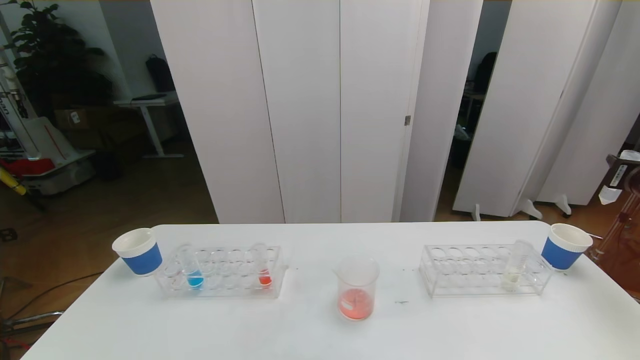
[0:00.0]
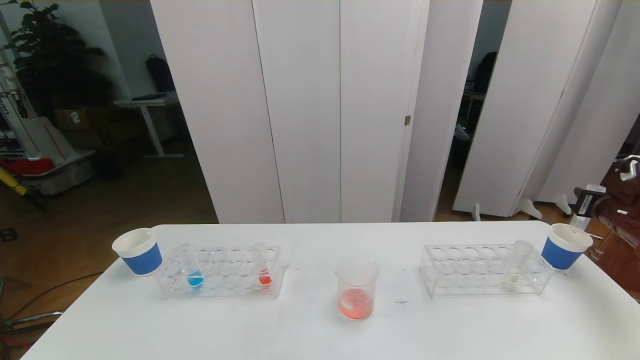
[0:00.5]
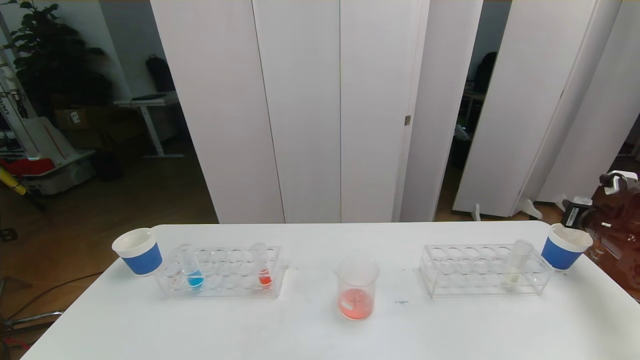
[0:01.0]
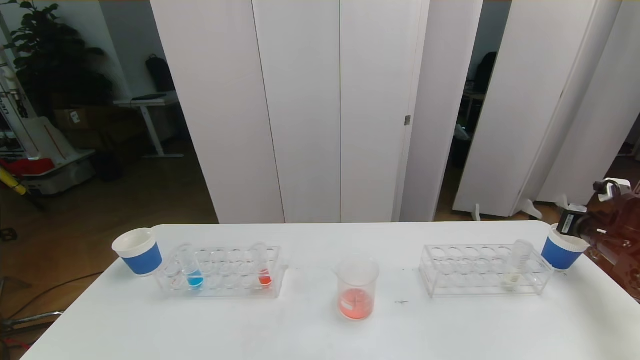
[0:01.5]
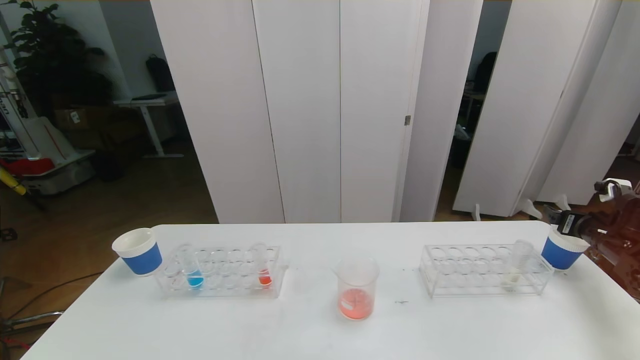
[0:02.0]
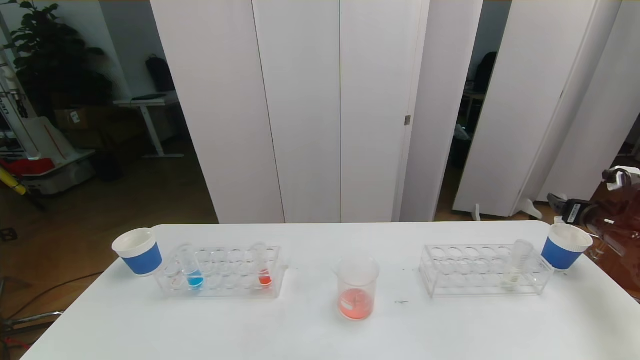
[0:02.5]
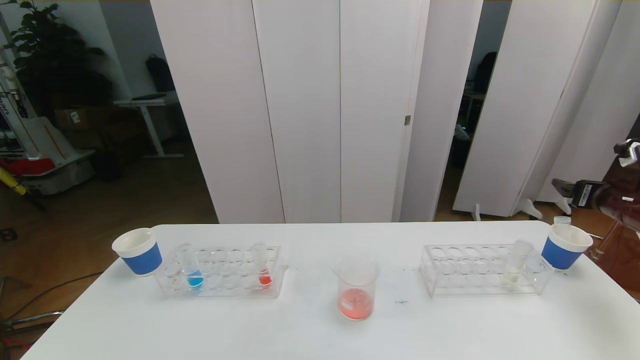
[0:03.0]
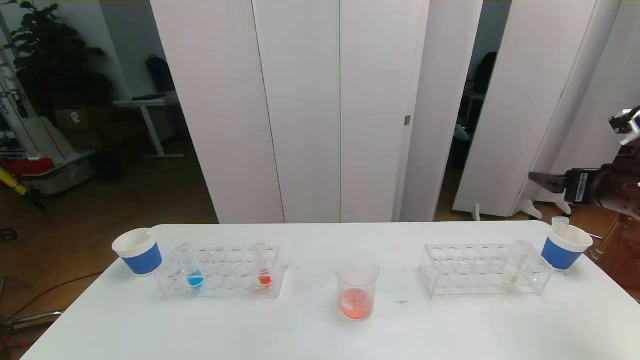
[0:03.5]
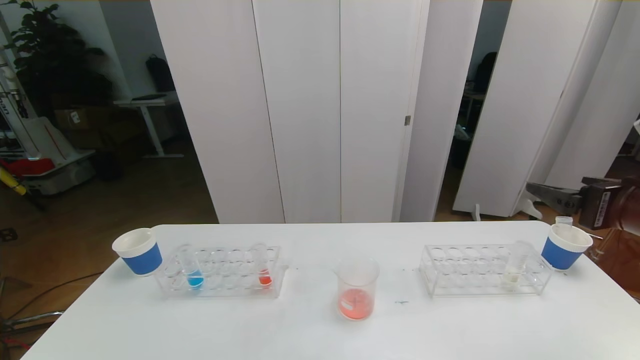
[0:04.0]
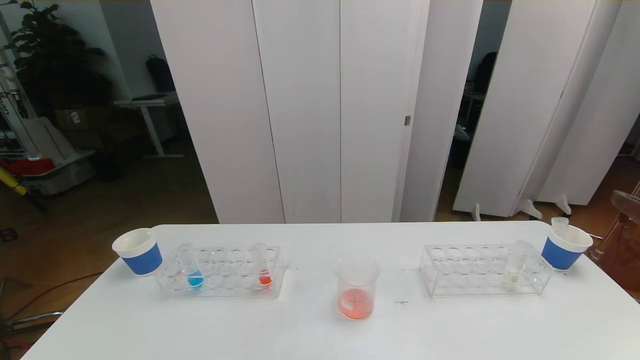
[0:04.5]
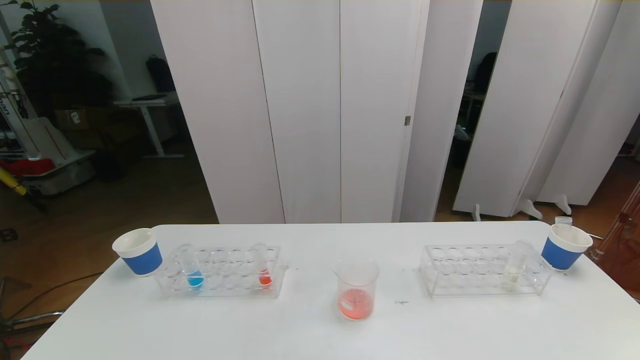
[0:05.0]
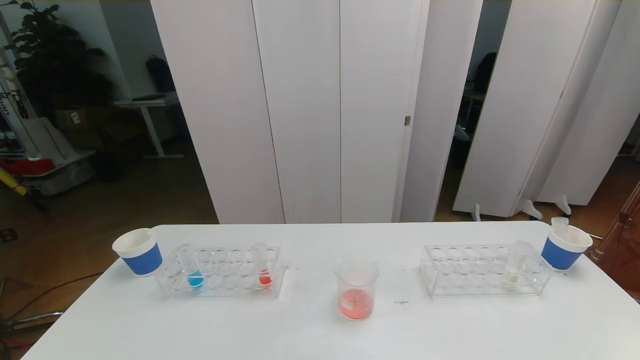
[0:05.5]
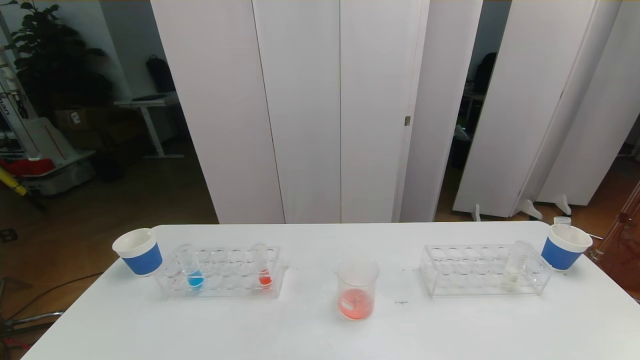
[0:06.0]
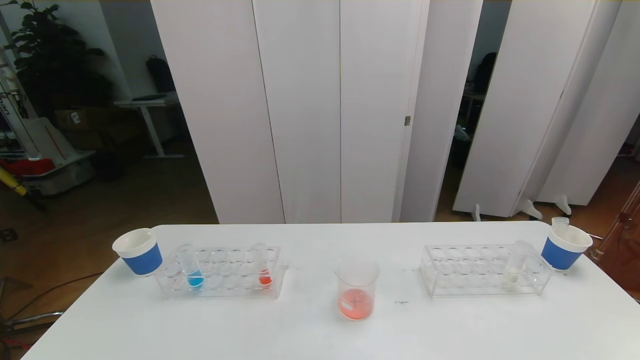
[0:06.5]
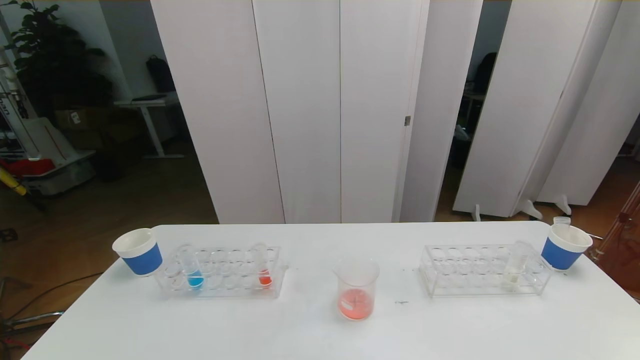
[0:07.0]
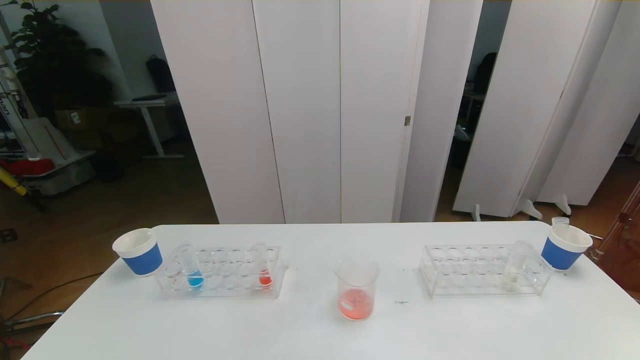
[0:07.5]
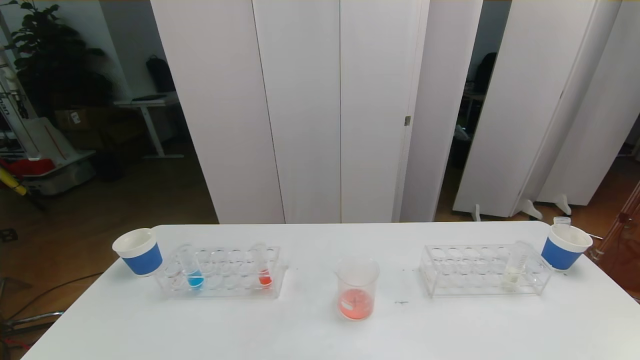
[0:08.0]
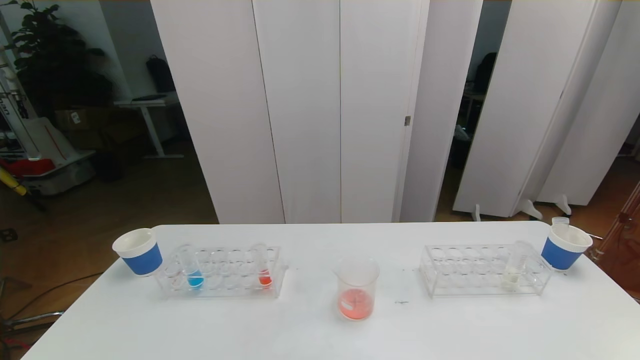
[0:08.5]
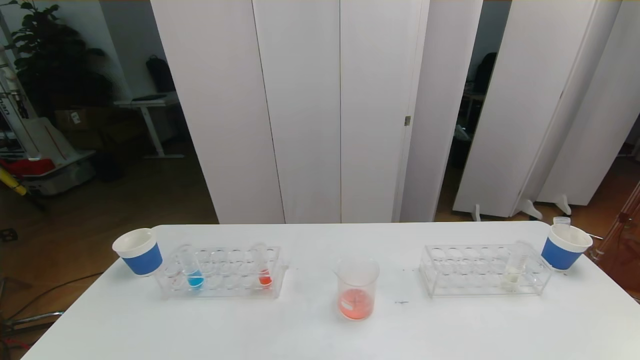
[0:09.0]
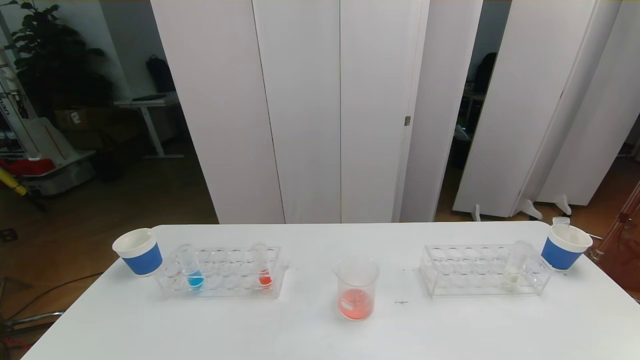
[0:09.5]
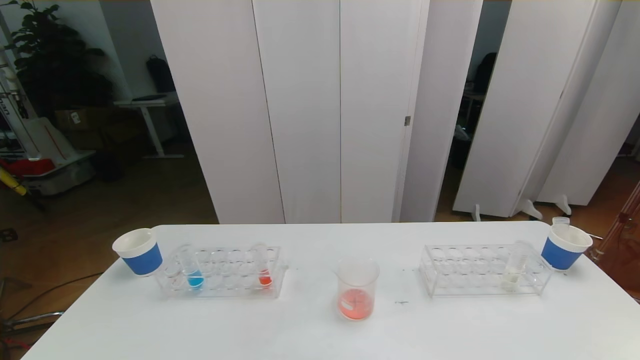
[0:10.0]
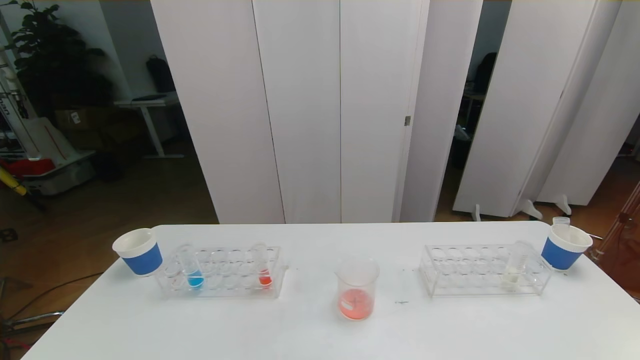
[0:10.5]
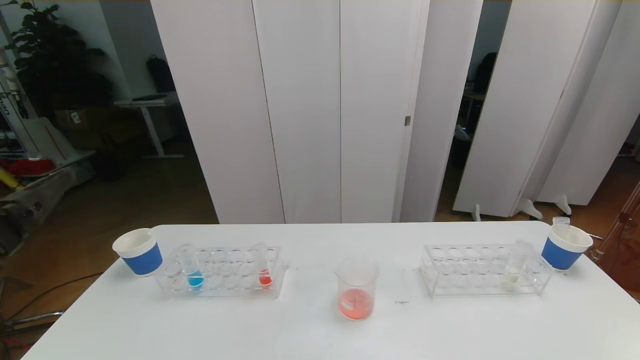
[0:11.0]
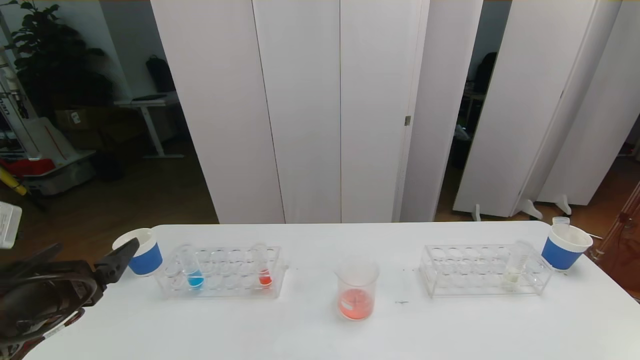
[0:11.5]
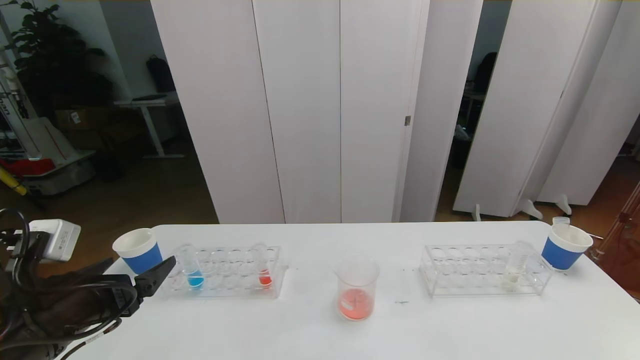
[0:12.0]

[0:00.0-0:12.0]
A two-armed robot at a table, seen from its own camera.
Task of the whole recording: pick up the test tube with red pigment the test tube with blue pigment and the test tube with white pigment by grippers and pour them into the beaker.
Step, 0:00.0 to 0:09.5: Pour the red reagent into the graduated cylinder and place the test tube into the paper cup.
0:00.0 to 0:02.0: The right gripper moves downward, roughly 10 cm, and opens its fingers.
0:02.0 to 0:04.0: The right gripper moves upward, to the left and backward, approximately 25 cm.
0:04.0 to 0:06.0: The right gripper shifts about 30 cm backward and downward.
0:10.0 to 0:12.0: The left gripper heads forward and downward, covering roughly 25 cm.

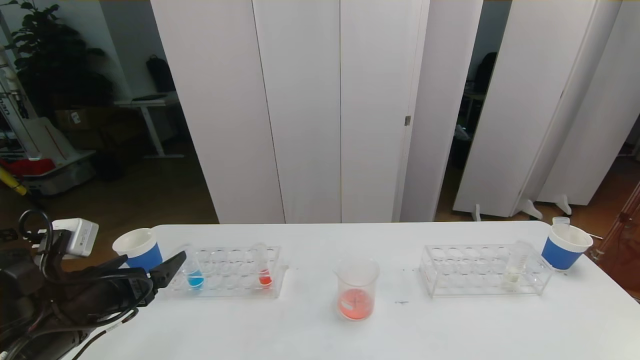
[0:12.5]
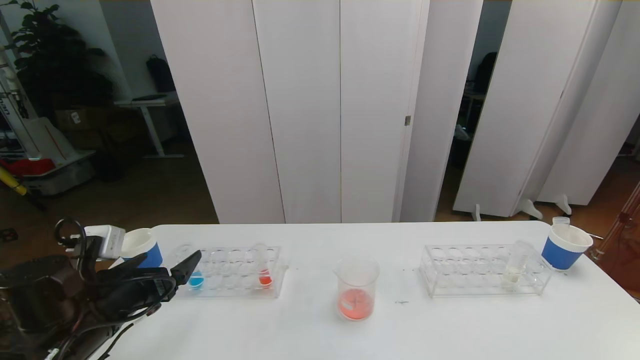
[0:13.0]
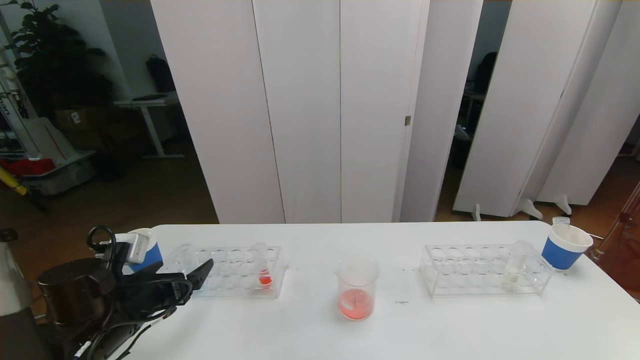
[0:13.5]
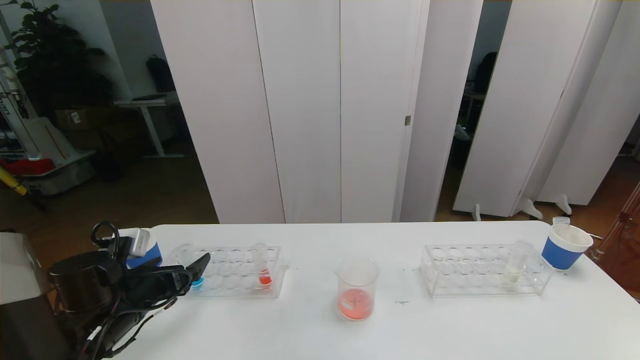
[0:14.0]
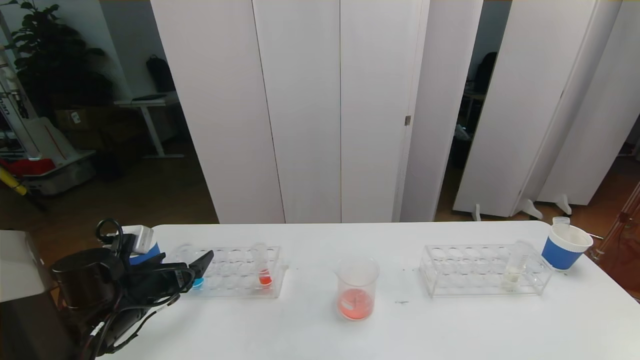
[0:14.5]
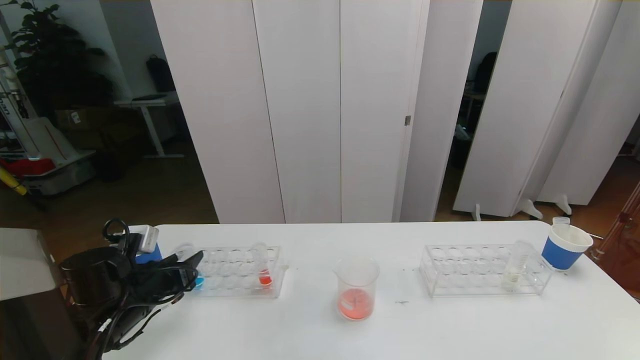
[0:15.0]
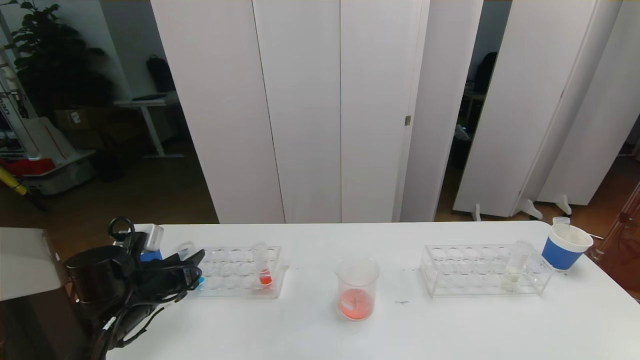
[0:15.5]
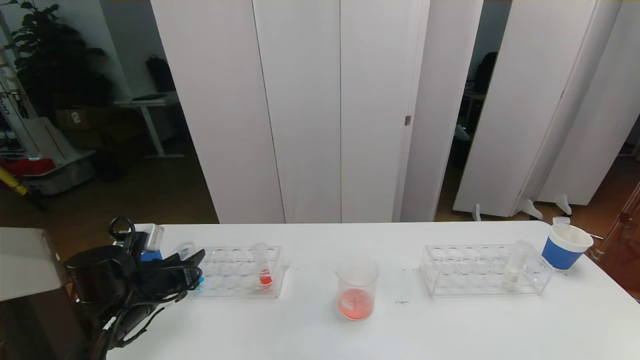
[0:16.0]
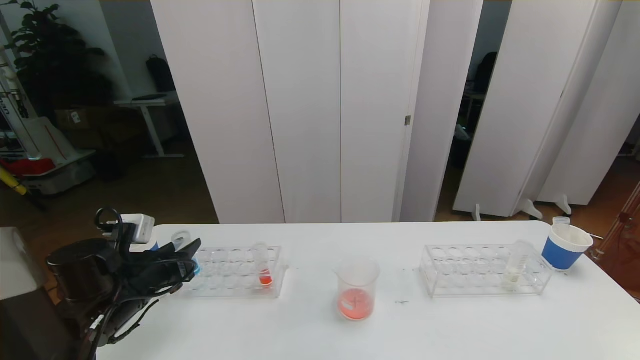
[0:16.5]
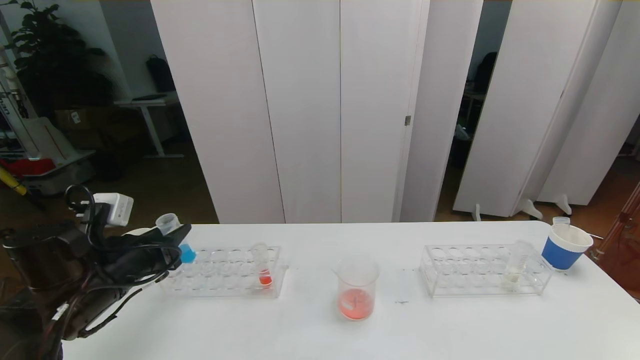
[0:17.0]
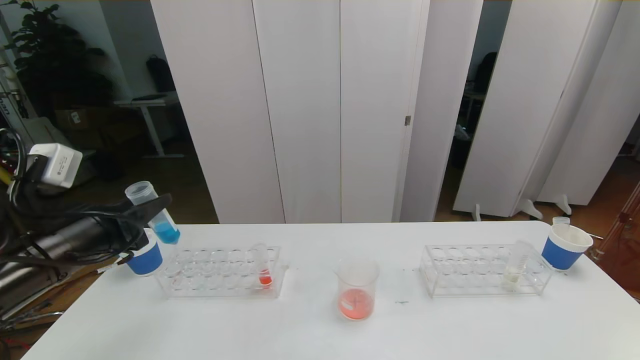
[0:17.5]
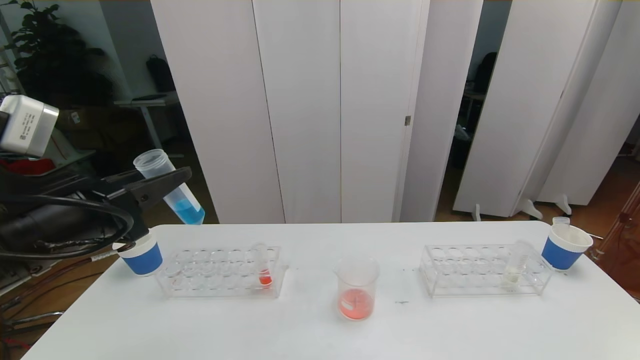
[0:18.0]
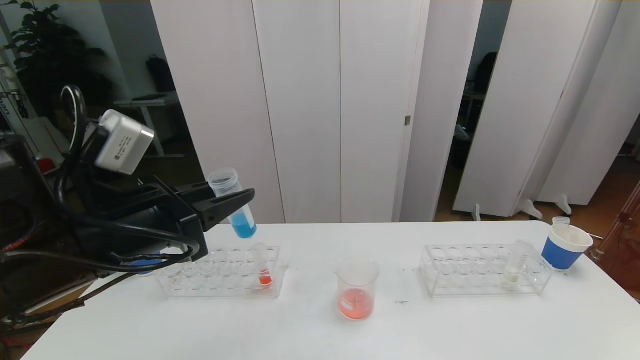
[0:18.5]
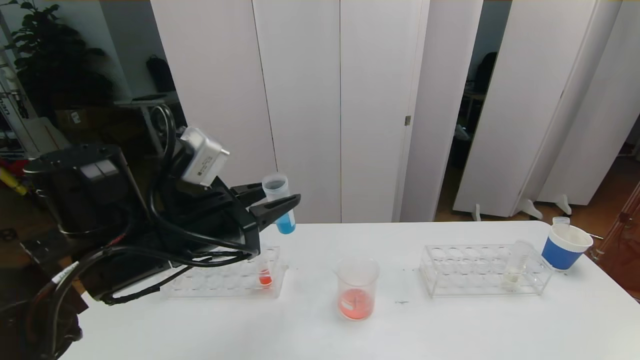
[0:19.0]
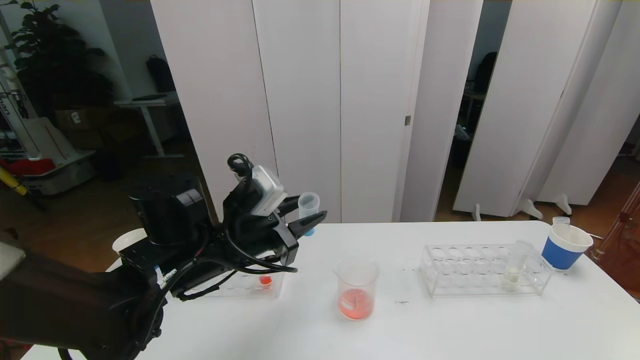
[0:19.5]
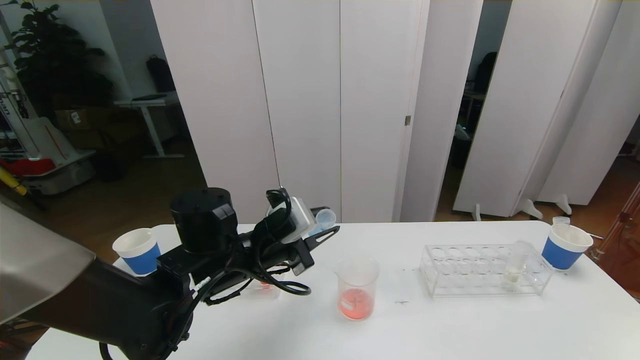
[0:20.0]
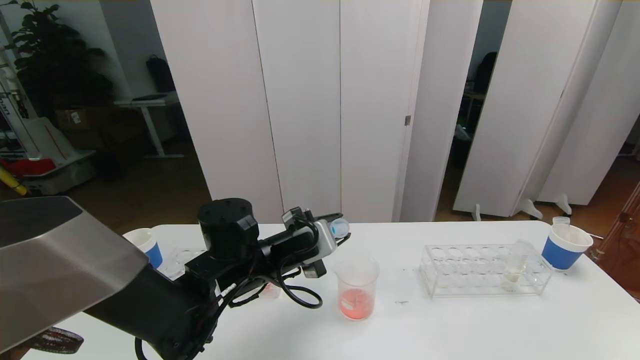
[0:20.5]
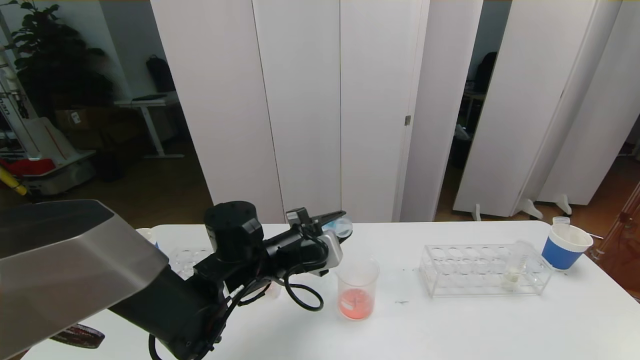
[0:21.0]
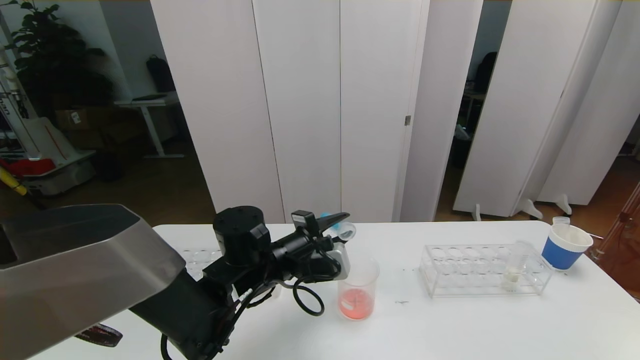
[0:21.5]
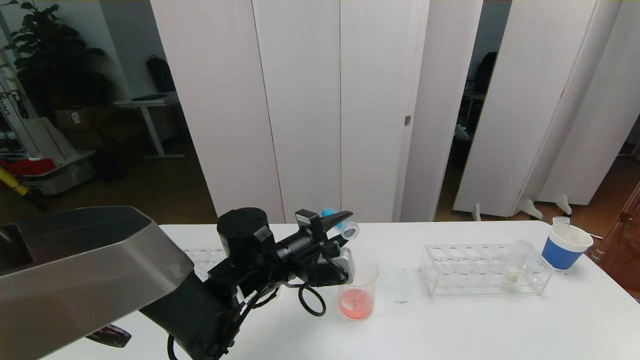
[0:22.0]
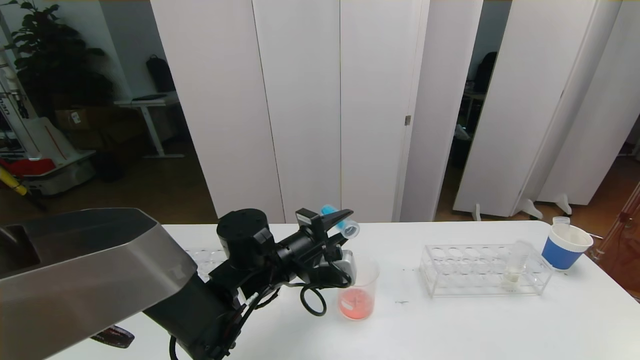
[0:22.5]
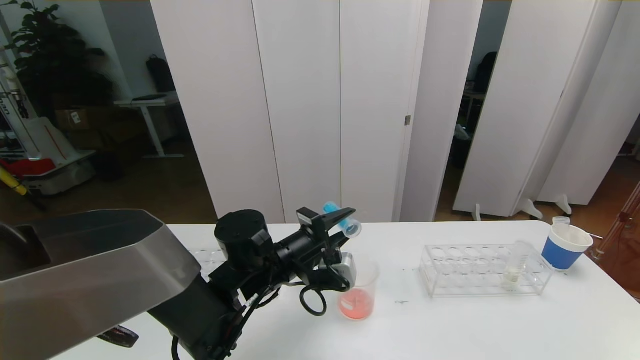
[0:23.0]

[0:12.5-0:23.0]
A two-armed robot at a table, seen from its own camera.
Task of the whole recording: pick up the test tube with red pigment the test tube with blue pigment and the test tube with white pigment by grippers and pour them into the beaker.
0:12.5 to 0:14.5: The left gripper heads forward and downward, covering roughly 10 cm.
0:14.5 to 0:16.5: The left gripper closes its fingers.
0:16.5 to 0:19.0: The left gripper moves upward and to the right, some 20 cm.
0:19.0 to 0:21.0: The left gripper shifts some 15 cm downward, to the right and forward.
0:21.0 to 0:23.0: The grippers make only small movements.
